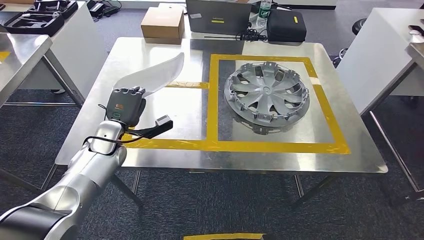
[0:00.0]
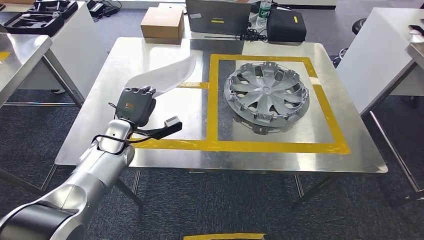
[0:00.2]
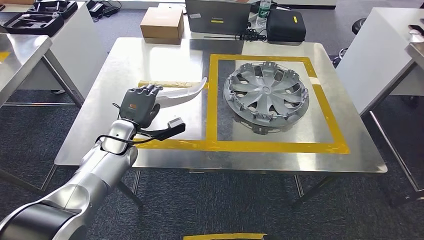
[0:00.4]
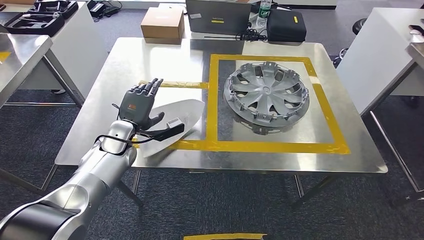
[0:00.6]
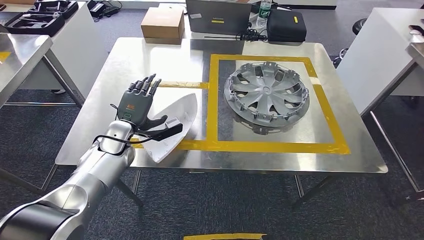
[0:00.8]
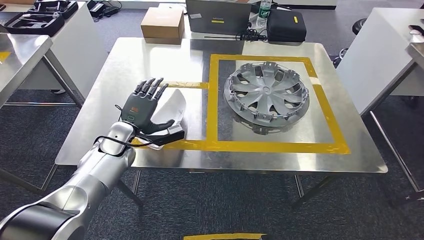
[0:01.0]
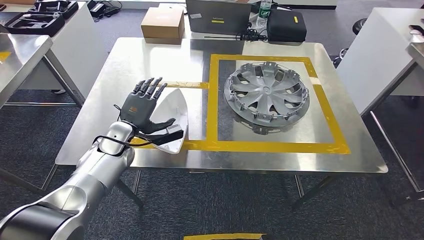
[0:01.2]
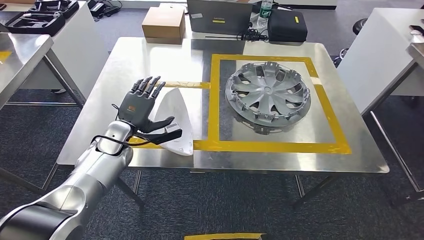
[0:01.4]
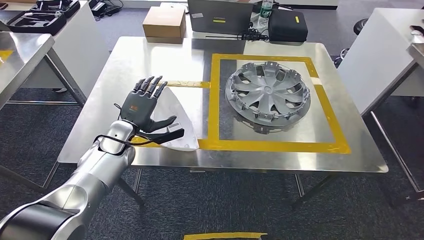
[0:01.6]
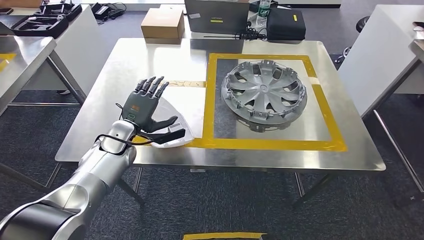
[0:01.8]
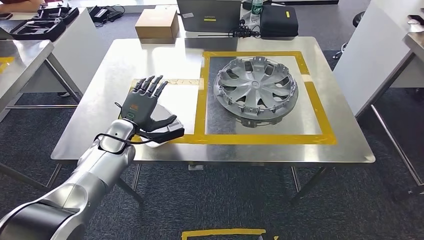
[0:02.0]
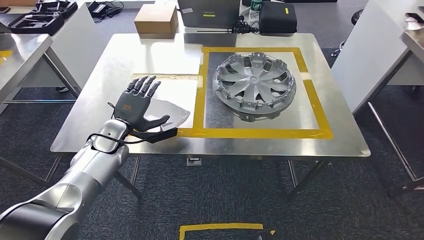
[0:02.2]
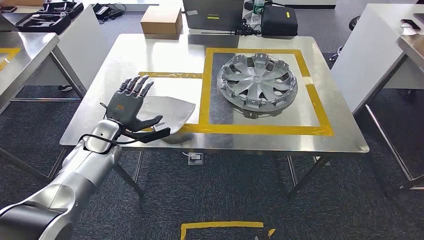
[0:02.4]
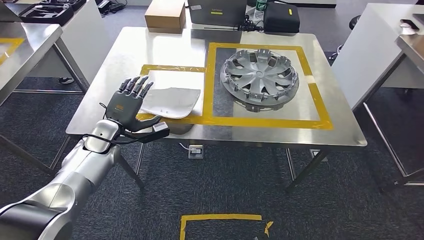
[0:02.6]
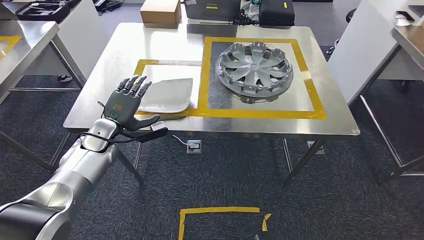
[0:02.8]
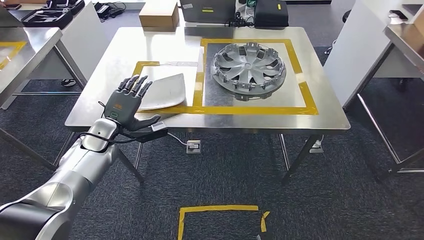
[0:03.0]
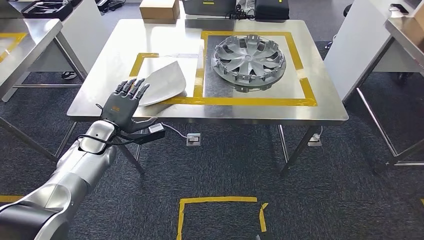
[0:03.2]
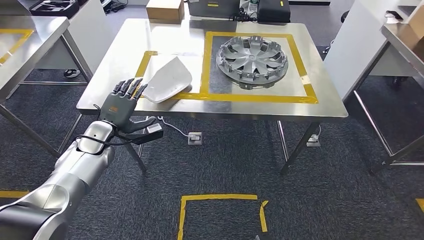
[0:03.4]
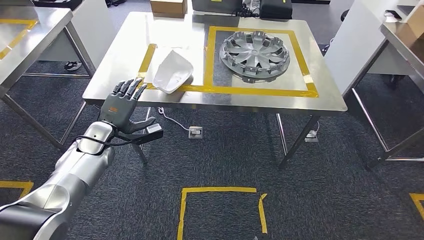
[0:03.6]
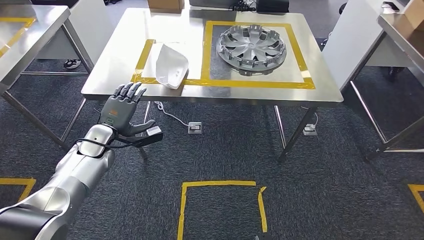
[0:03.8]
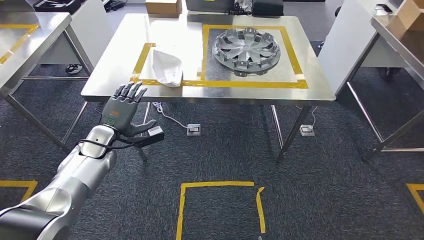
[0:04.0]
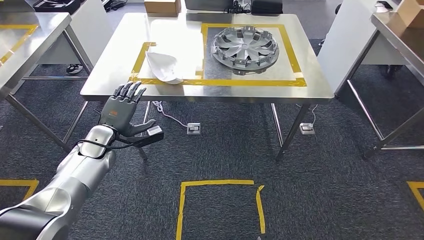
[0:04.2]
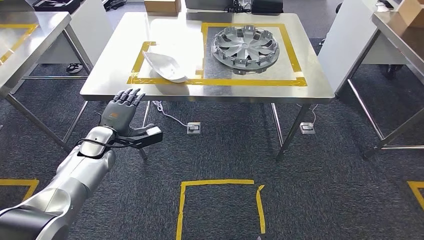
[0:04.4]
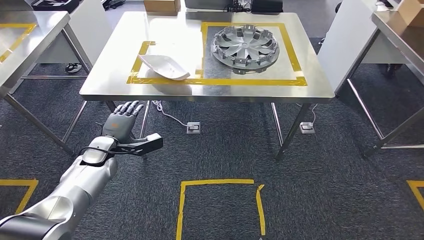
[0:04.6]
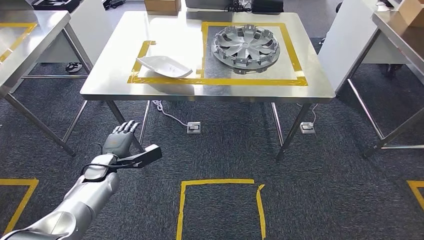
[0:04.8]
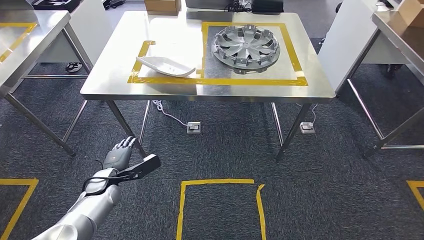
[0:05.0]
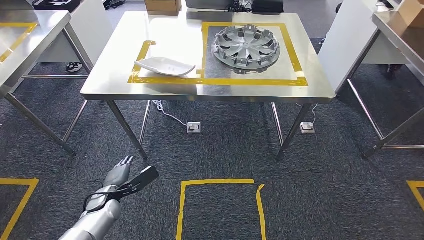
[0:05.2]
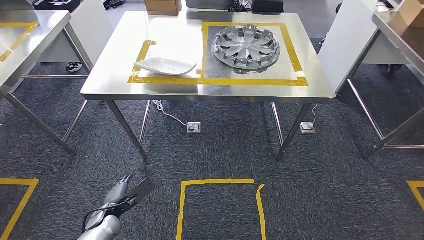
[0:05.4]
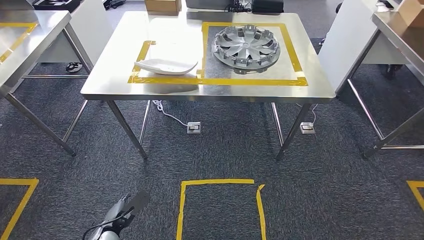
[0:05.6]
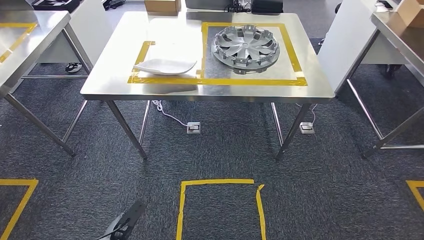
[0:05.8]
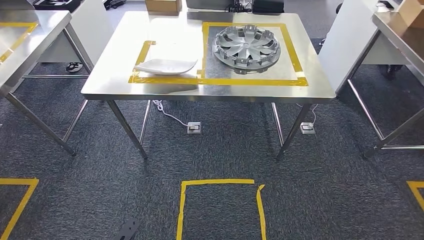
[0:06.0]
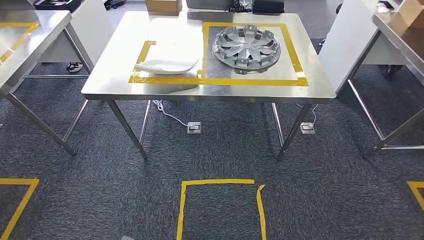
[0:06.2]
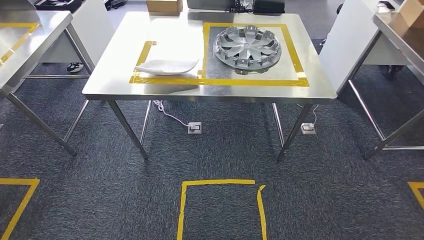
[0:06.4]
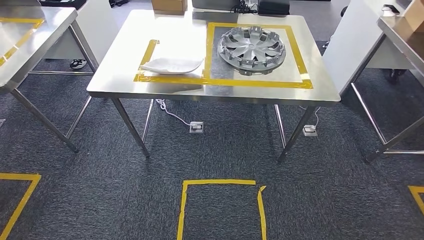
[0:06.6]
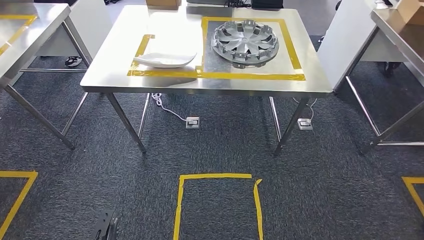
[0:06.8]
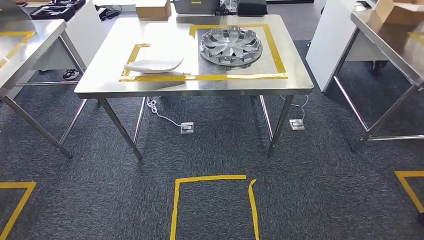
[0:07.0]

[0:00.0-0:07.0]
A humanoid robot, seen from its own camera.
Step, 0:00.0 to 0:02.0: Insert the large material into the corresponding hole on the workbench.
Step, 0:02.6 to 0:07.0: Move to the initial position of the shelf.
0:00.0 to 0:01.4: The hands stay close to where they were, moving slightly.
0:04.2 to 0:05.6: The left hand moves downward and backward, about 30 cm.
